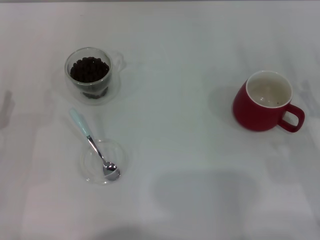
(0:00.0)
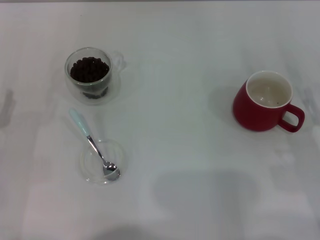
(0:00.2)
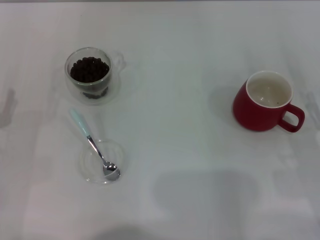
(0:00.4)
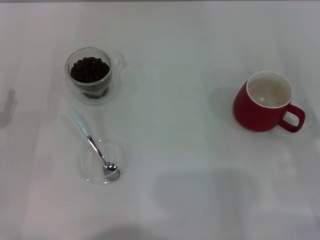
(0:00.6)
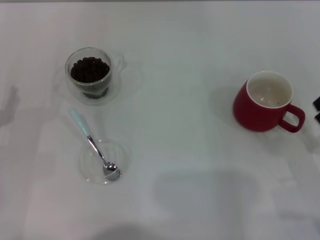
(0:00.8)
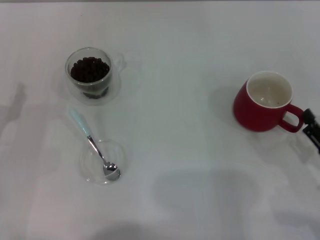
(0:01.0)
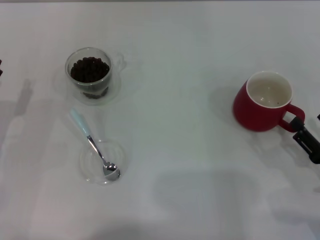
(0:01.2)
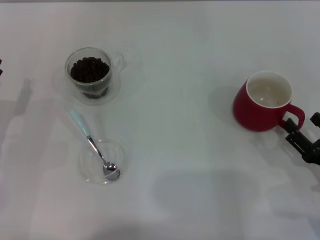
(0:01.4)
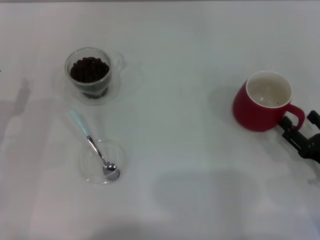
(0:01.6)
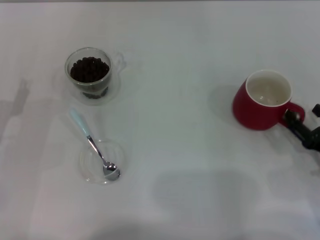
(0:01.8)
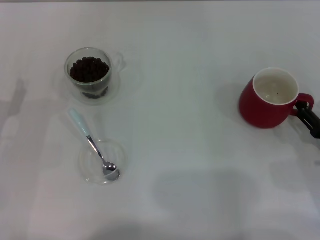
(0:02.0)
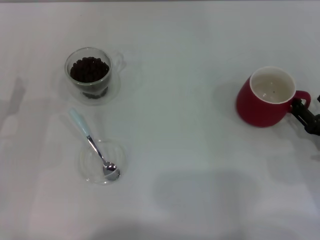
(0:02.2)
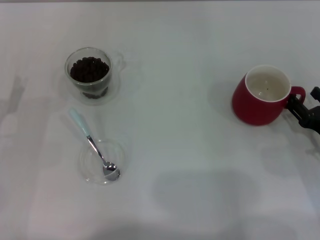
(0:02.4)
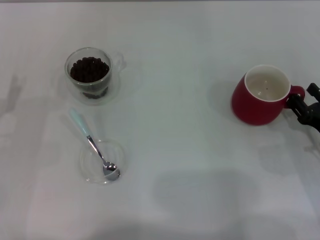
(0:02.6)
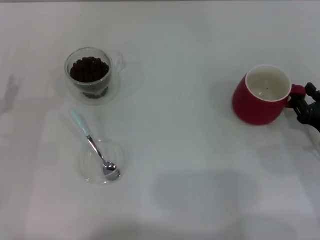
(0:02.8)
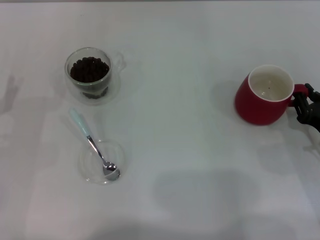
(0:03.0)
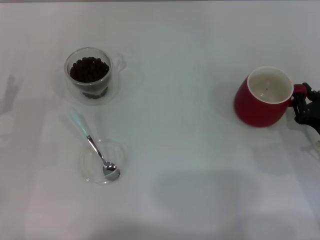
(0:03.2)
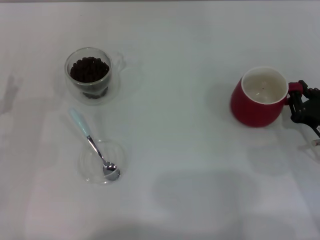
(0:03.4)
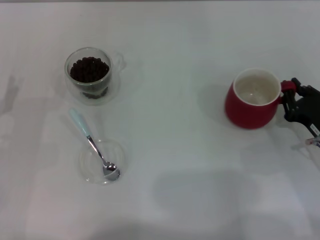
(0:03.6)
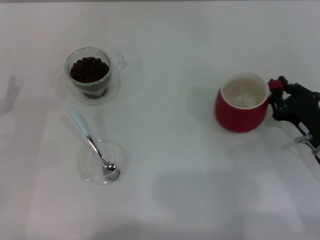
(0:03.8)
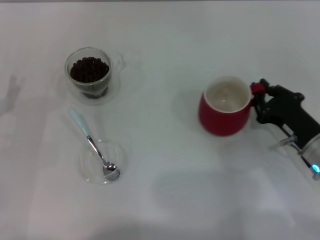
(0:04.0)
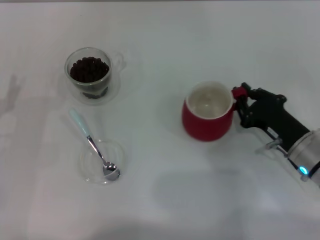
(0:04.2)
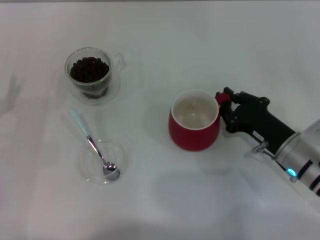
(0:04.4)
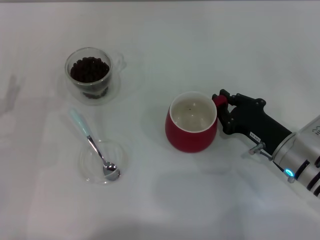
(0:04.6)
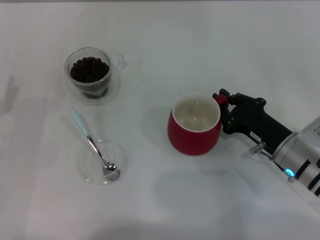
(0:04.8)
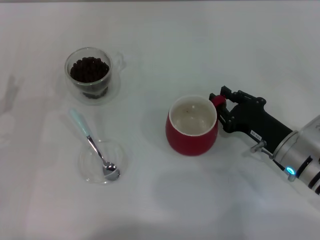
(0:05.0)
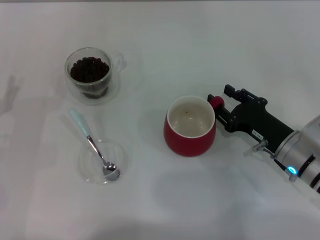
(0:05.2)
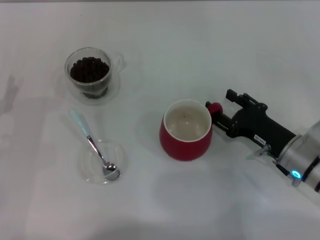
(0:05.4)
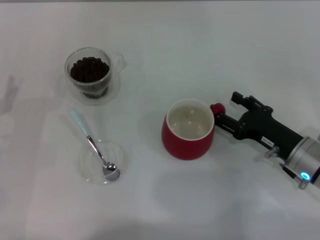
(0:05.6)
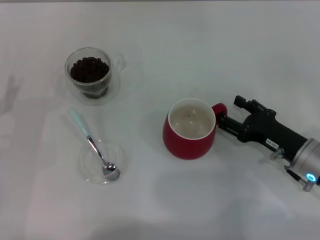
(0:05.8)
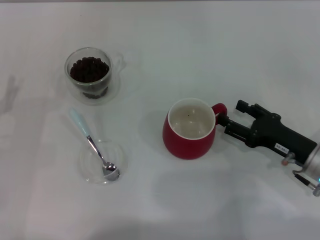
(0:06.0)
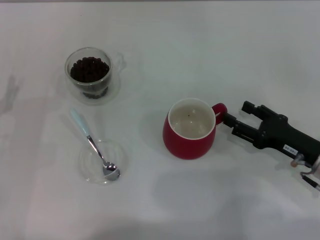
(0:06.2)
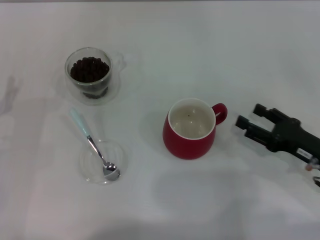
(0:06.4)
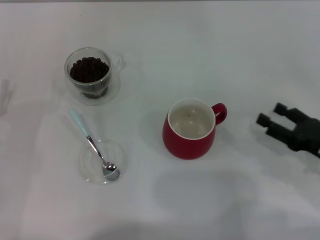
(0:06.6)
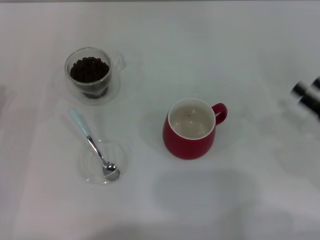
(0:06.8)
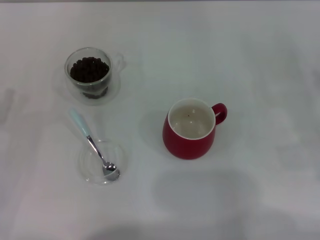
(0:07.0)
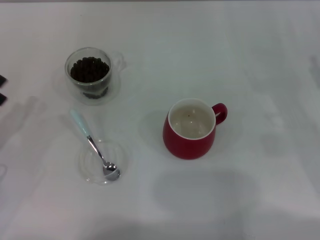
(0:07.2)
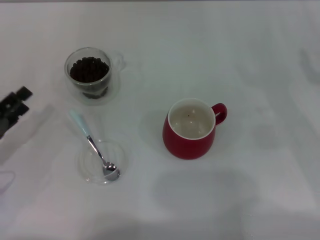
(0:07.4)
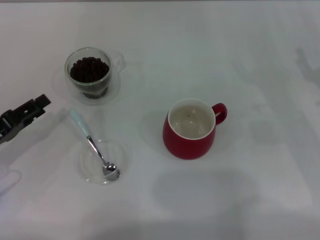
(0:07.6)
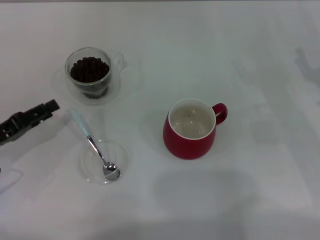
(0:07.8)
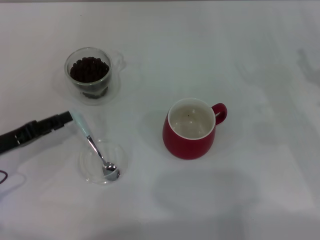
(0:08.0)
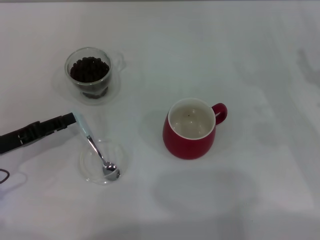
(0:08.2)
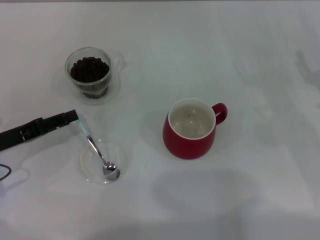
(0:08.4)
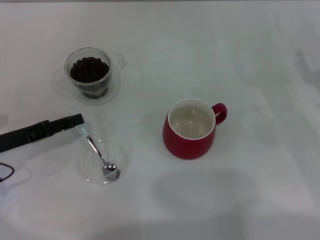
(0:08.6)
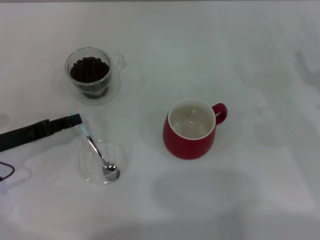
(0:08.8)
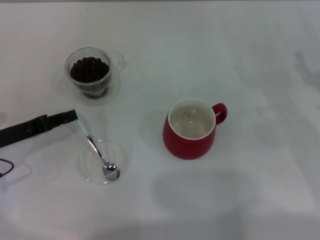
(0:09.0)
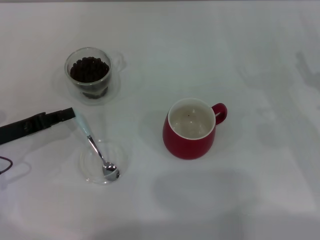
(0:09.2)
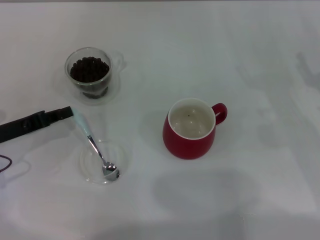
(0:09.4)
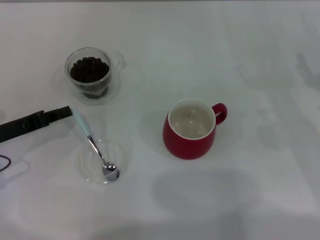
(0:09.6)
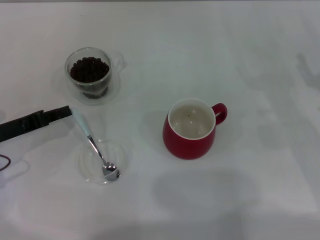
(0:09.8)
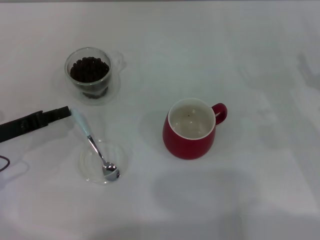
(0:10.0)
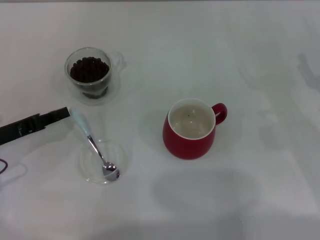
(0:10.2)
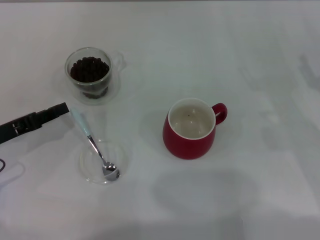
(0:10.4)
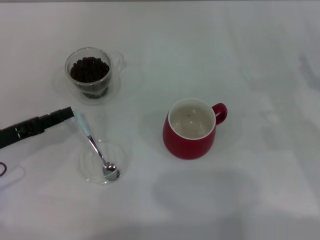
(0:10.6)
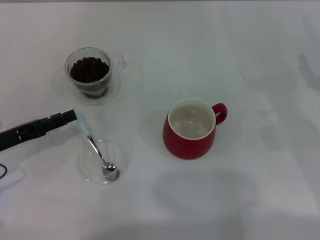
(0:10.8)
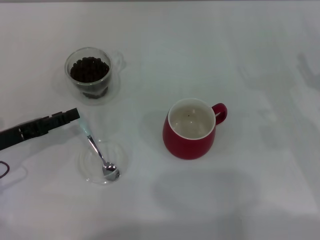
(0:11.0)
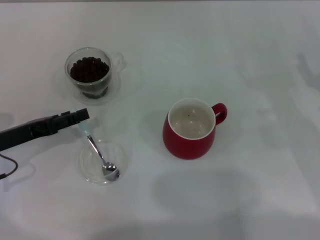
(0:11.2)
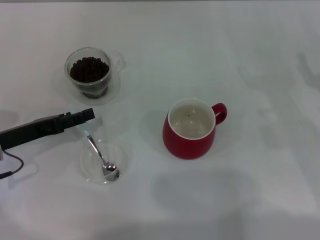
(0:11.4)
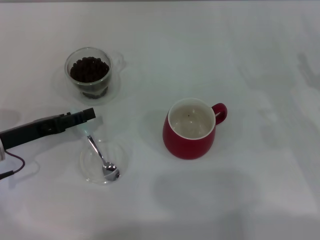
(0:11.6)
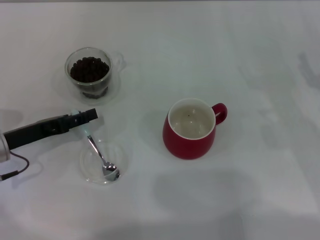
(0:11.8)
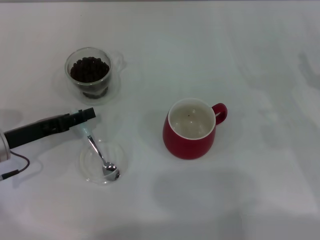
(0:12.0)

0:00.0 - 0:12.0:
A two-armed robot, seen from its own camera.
Task of the whole recording: Use a blue spoon to take out the coffee beans from the glass and pour them into the red cup.
Step, 0:00.0 - 0:06.2: Move the cup to the center of view with the left gripper.
0:00.0 - 0:01.6: The right gripper ends up about 5 cm from where it was.
0:01.6 - 0:03.0: The right gripper heads forward, covering roughly 5 cm, and closes.
0:03.0 - 0:04.4: The right gripper is displaced to the left by some 10 cm, and closes.
0:04.4 - 0:06.0: The right gripper opens up.
0:06.0 - 0:07.6: The right gripper moves to the right and upward, some 10 cm.
0:09.0 - 0:10.4: The left gripper closes.
0:10.4 - 0:12.0: The left gripper opens up.

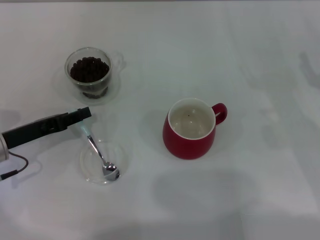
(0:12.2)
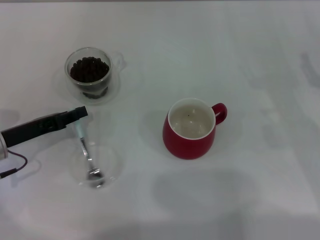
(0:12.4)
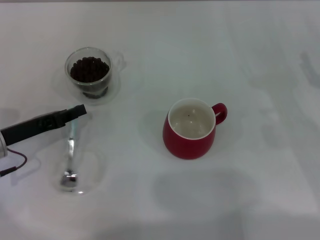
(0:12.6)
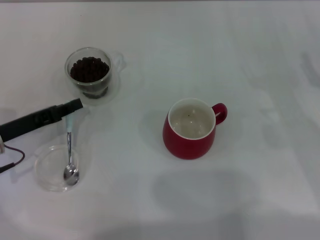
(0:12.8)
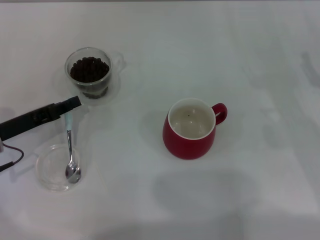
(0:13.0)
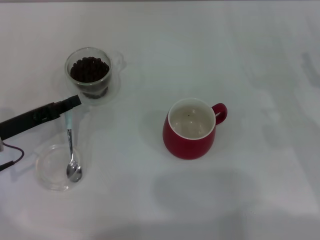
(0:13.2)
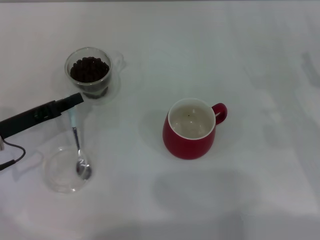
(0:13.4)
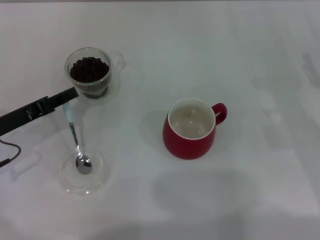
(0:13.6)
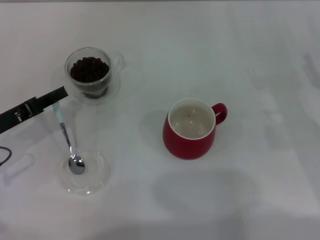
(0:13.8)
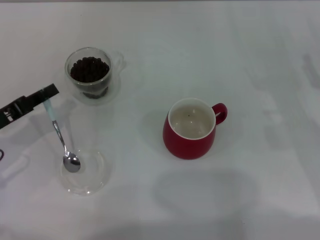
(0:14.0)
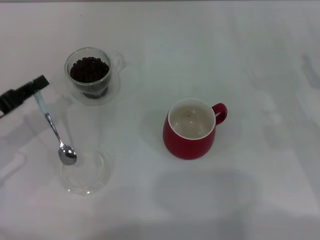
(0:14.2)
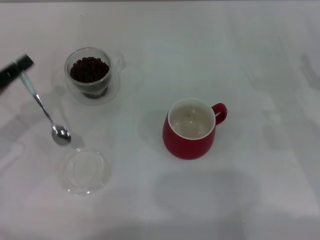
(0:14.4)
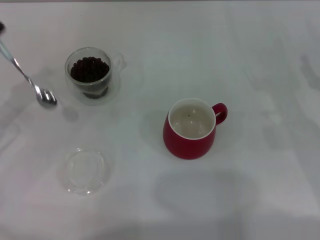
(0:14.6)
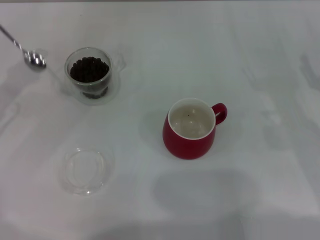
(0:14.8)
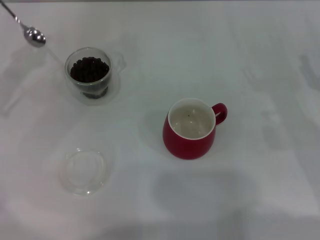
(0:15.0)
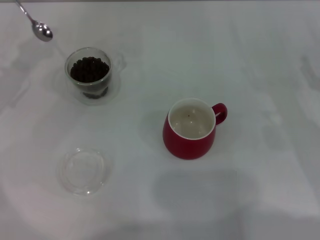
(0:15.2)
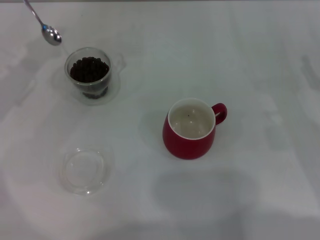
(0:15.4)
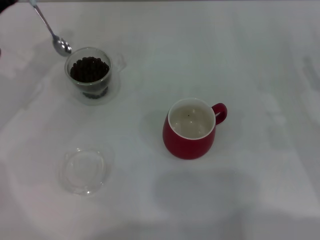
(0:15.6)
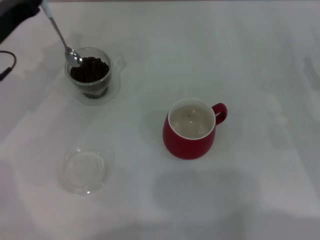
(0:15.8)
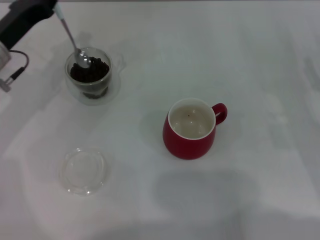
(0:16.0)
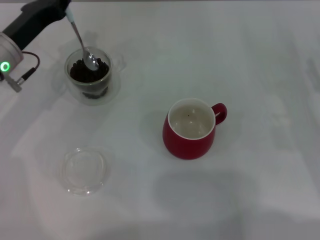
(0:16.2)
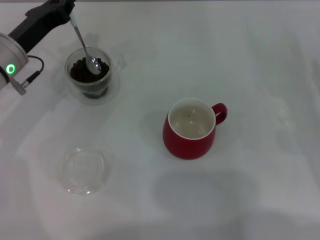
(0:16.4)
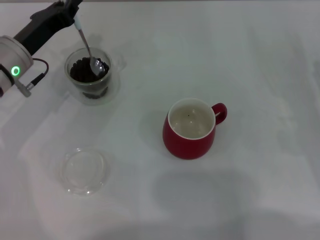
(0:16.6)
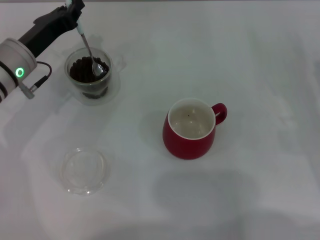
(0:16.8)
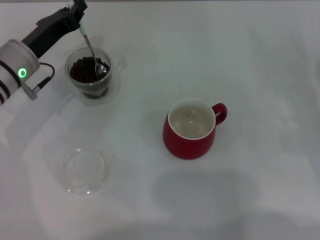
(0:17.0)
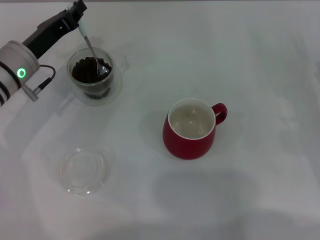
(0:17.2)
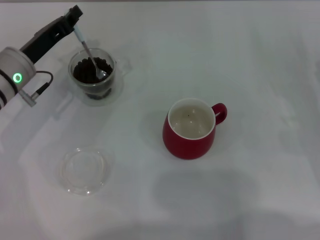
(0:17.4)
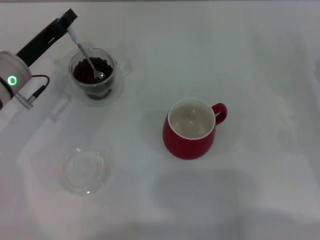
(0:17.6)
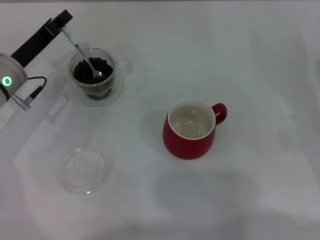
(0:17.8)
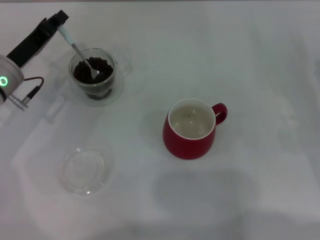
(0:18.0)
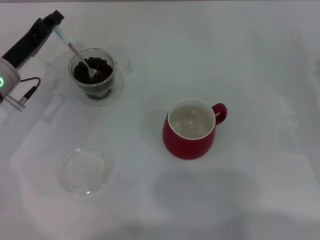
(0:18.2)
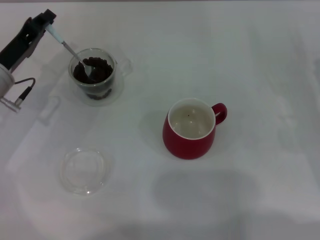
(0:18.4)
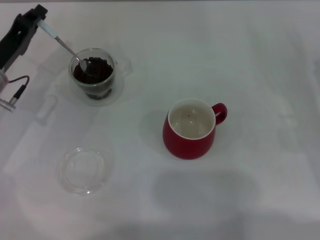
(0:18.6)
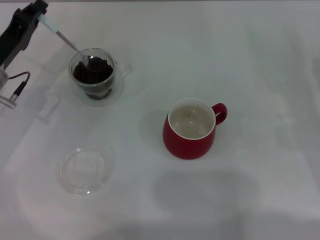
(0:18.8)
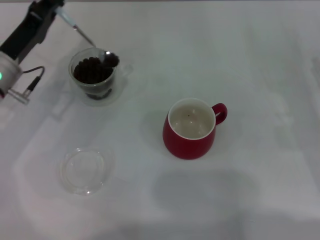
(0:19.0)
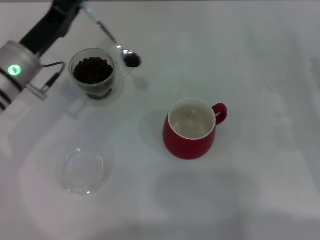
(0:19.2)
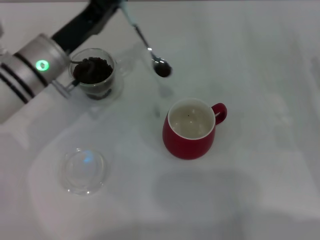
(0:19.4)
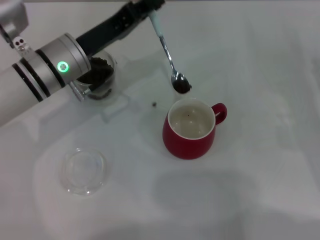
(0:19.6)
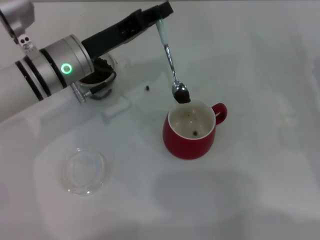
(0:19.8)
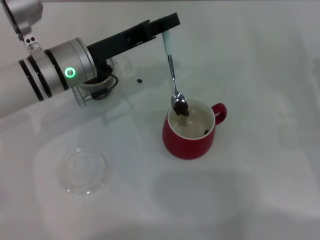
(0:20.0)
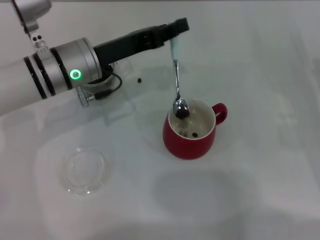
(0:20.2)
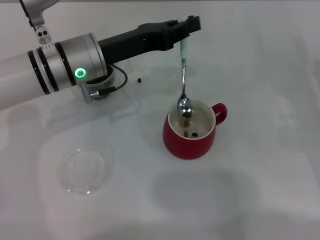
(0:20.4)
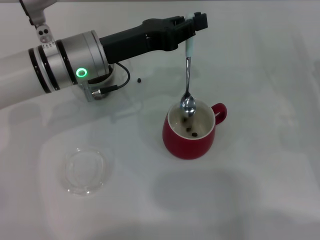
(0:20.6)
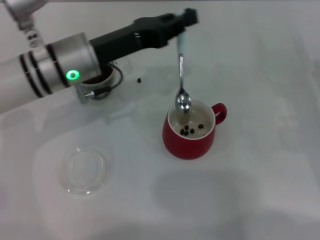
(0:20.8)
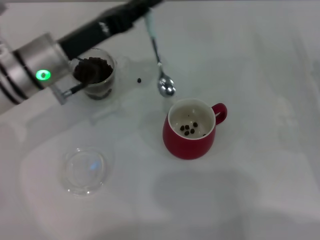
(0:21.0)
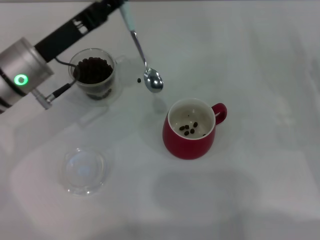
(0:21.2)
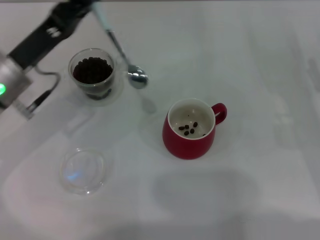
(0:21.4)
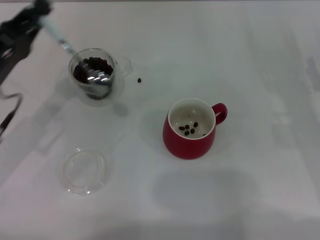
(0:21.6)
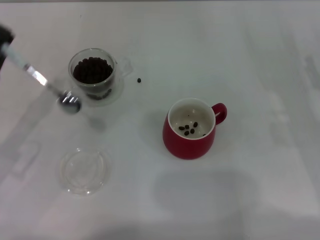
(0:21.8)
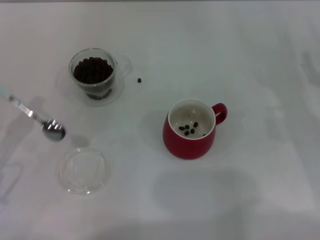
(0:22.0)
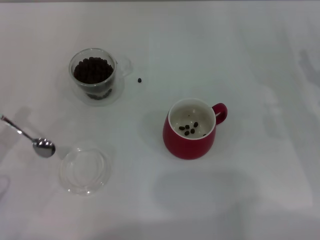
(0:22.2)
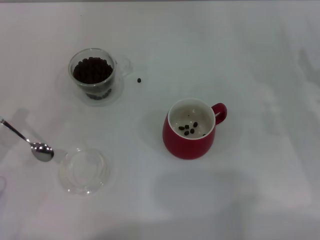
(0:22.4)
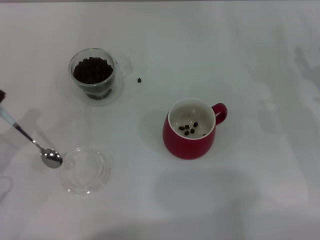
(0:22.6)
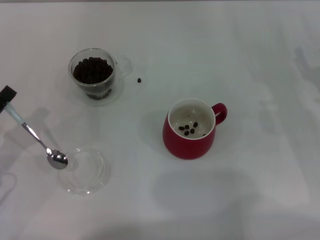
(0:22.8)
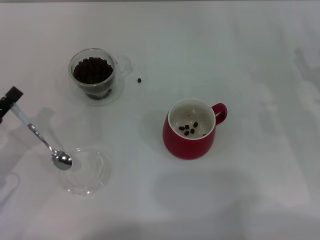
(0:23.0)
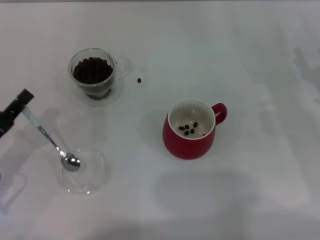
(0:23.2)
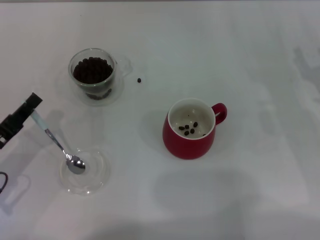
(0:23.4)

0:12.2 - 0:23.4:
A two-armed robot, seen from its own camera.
Task of the whole recording: Use a blue spoon to take out the coffee beans from the glass and pour them into the red cup.
0:12.2 - 0:13.8: The left gripper closes up.
0:13.8 - 0:15.4: The left gripper goes approximately 10 cm forward and upward.
0:15.4 - 0:17.0: The left gripper travels to the right by some 10 cm.
0:17.0 - 0:18.6: The left gripper moves roughly 5 cm.
0:18.6 - 0:20.2: The left gripper moves to the right, approximately 10 cm.
0:20.2 - 0:21.8: The left gripper shifts some 20 cm to the left and backward.
0:21.8 - 0:23.4: The left gripper changes place by roughly 5 cm.
